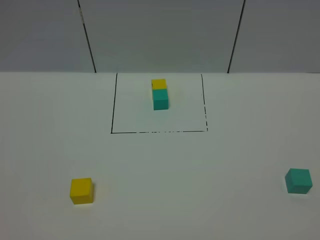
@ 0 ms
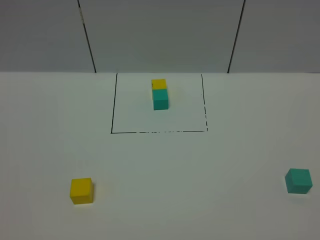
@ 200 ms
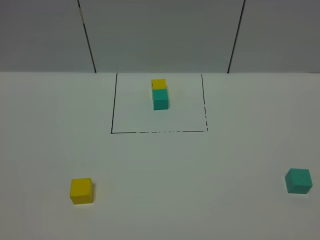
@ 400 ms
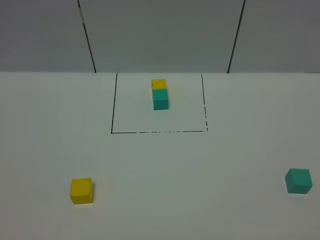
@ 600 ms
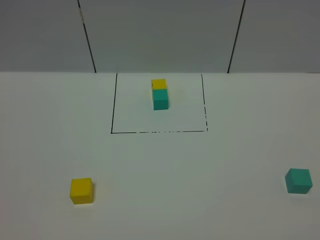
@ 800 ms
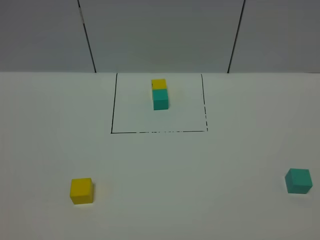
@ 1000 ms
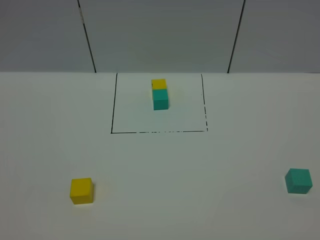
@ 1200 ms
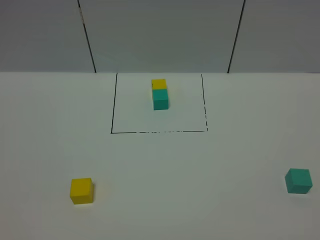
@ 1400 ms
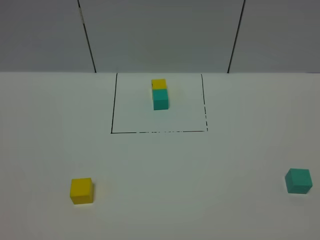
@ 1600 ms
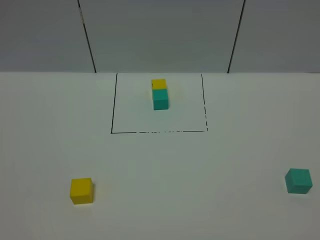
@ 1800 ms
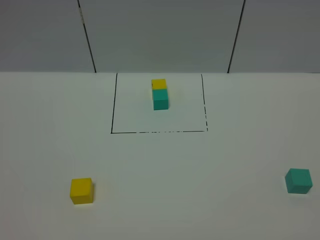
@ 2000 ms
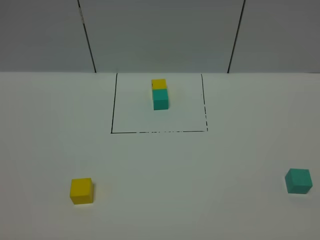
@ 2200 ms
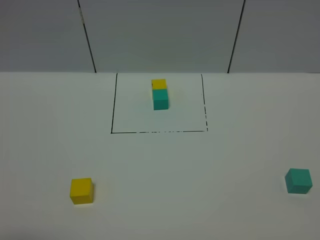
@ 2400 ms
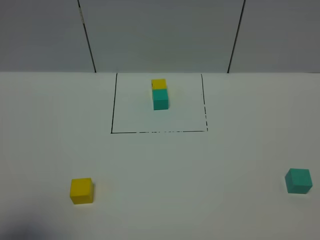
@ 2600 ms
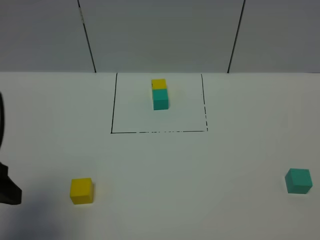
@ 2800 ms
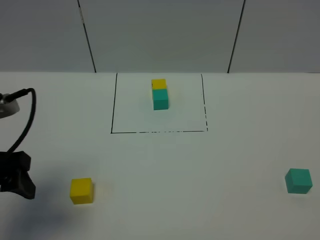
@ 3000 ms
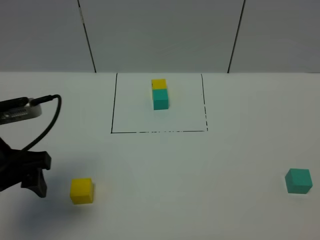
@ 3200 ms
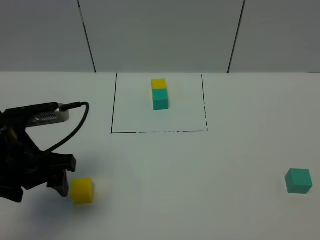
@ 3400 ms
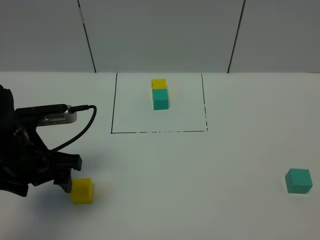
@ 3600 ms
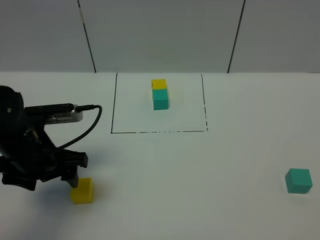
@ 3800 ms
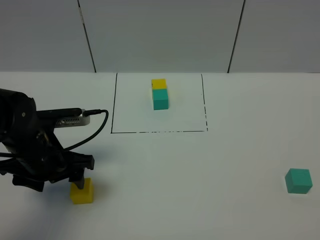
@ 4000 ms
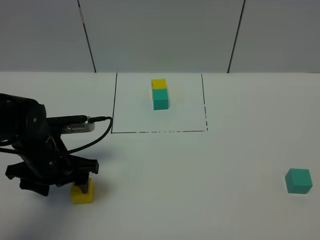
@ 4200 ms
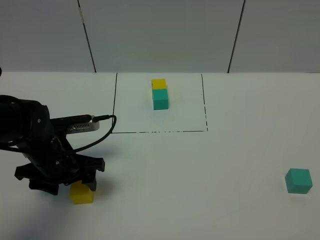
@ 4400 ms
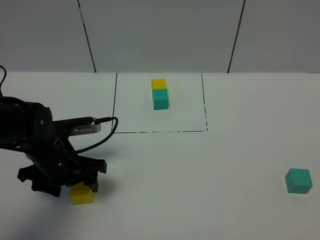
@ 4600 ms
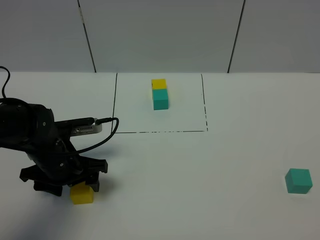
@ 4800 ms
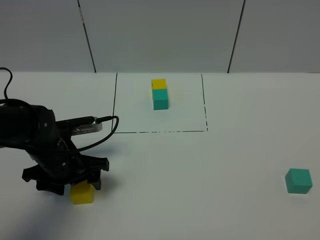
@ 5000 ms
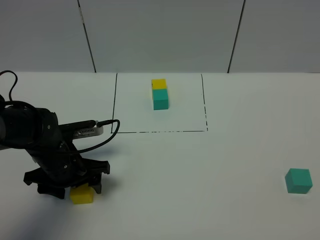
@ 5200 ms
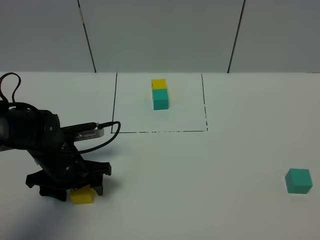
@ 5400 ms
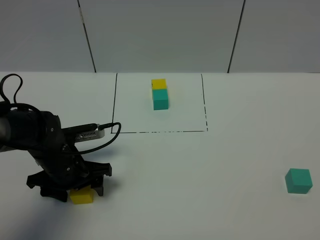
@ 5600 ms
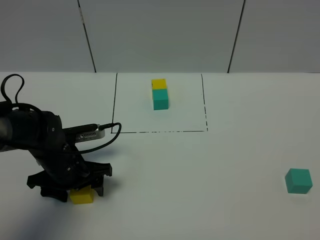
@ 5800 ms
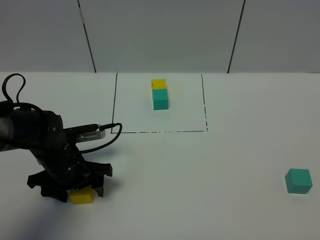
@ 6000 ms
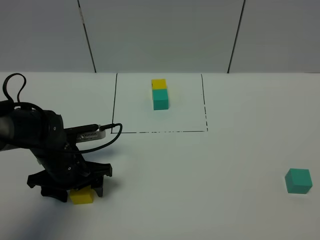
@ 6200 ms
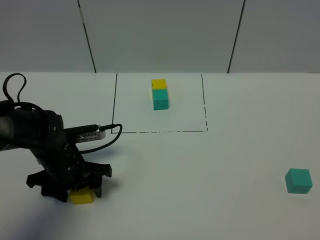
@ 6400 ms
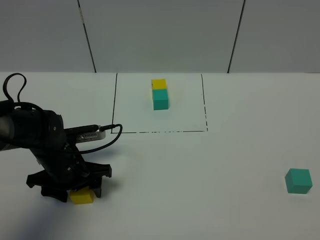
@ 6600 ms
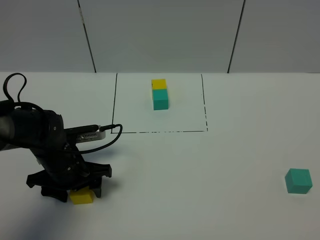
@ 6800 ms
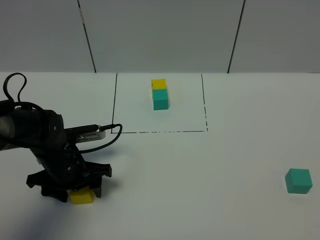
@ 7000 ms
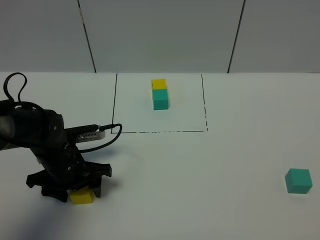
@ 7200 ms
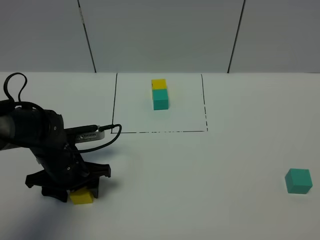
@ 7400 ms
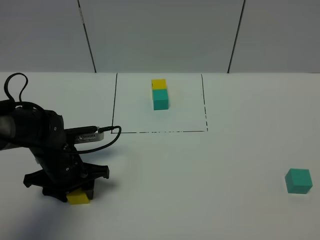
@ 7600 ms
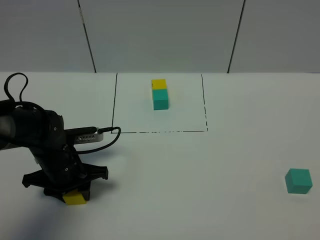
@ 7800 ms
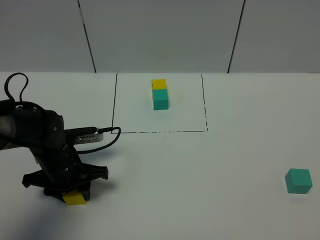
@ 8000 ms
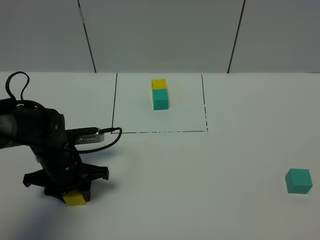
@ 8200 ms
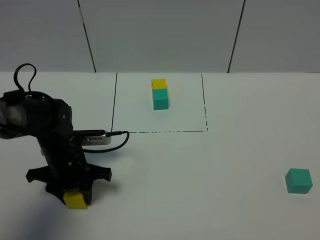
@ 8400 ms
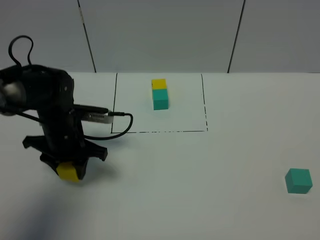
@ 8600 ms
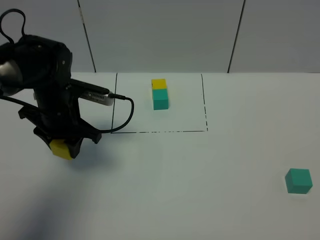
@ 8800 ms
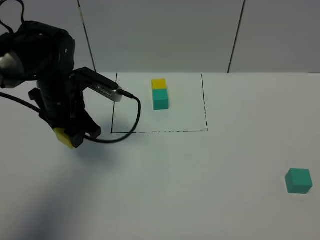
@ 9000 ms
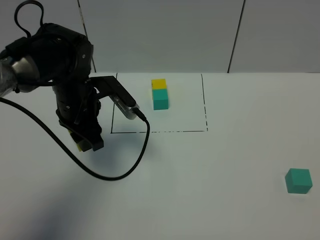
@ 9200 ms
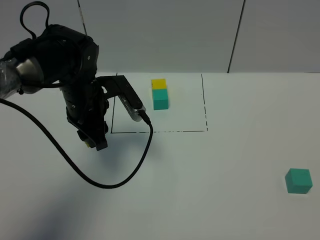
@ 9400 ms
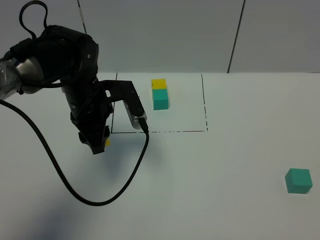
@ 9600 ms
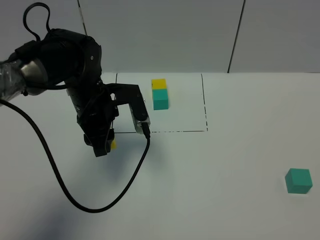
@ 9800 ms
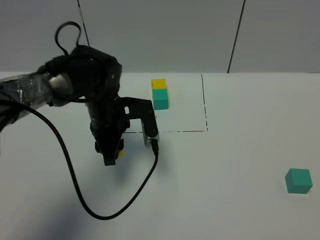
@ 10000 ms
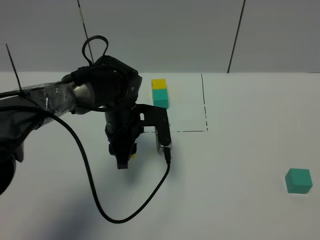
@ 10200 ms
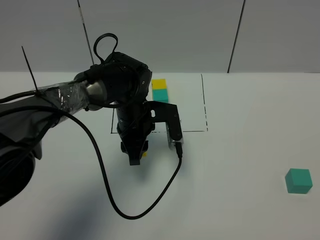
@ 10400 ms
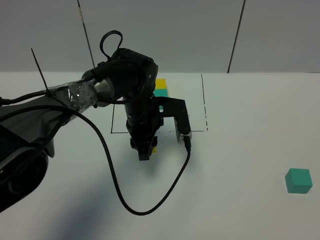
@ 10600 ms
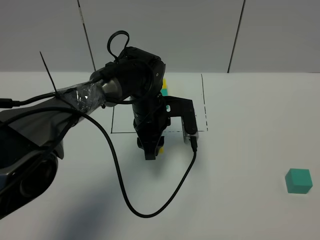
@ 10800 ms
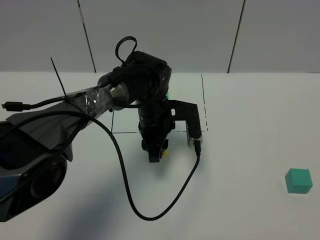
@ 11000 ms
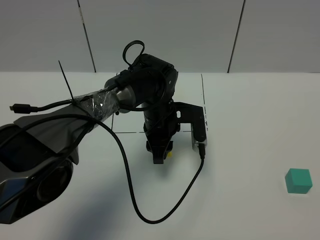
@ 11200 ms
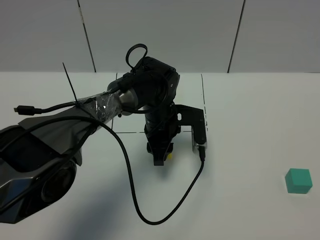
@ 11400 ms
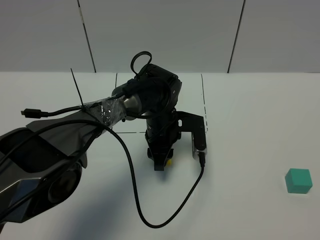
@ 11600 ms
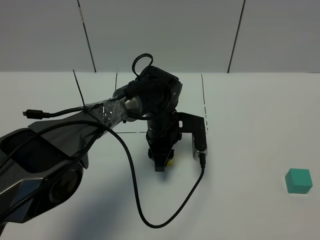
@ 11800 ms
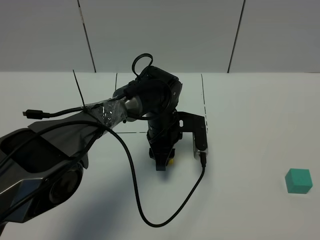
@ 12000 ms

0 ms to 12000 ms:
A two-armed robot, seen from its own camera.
Task of the whole recording: According to the building block template in front, assemble the scattered blocks together.
0 ms to 1600 ms: Neither gripper changes place.
1600 ms to 3000 ms: The left gripper heads forward, covering about 20 cm.
3000 ms to 4400 ms: The left gripper goes approximately 20 cm downward, forward and to the right.
4400 ms to 6000 ms: The grippers move only a little.
6000 ms to 7600 ms: The left gripper closes.
7600 ms to 9000 ms: The left gripper moves upward and forward, about 15 cm.
9000 ms to 10400 ms: The left gripper moves to the right and downward, approximately 15 cm.
10400 ms to 12000 ms: The left gripper is displaced to the right by roughly 5 cm.

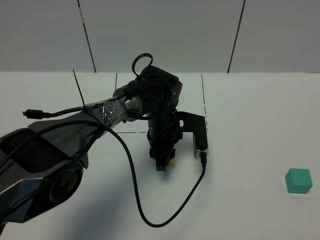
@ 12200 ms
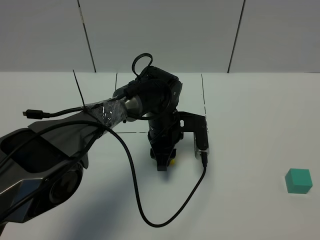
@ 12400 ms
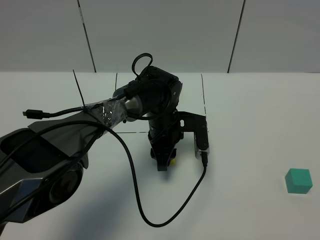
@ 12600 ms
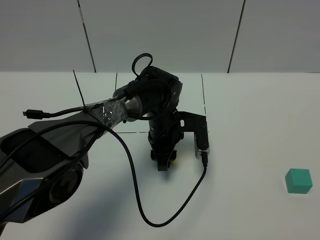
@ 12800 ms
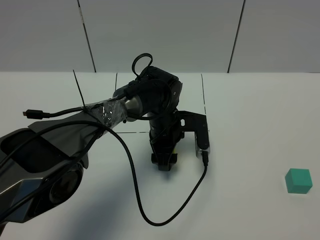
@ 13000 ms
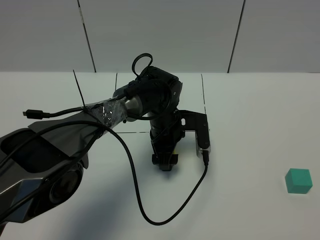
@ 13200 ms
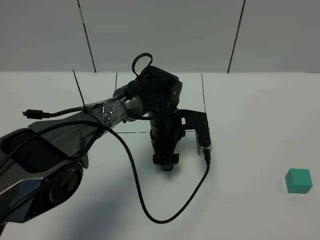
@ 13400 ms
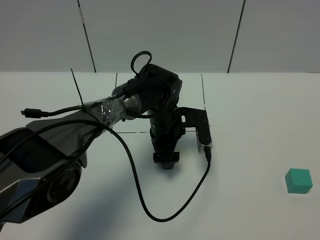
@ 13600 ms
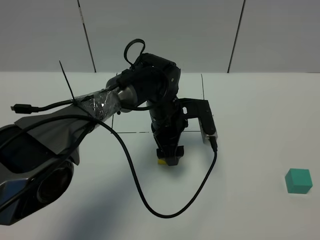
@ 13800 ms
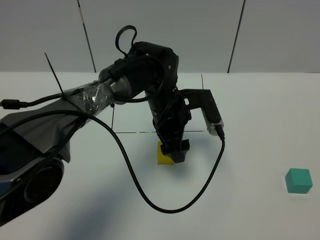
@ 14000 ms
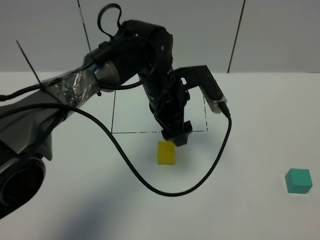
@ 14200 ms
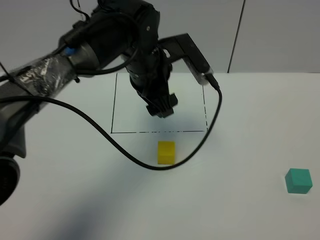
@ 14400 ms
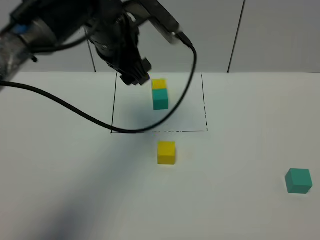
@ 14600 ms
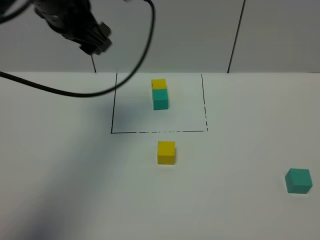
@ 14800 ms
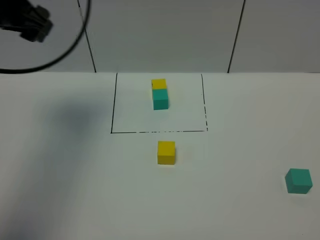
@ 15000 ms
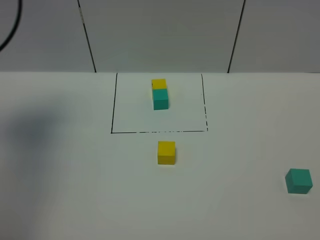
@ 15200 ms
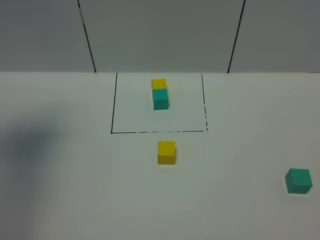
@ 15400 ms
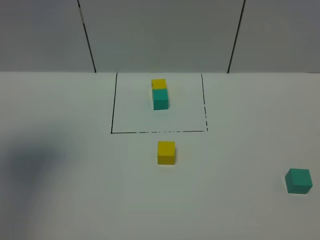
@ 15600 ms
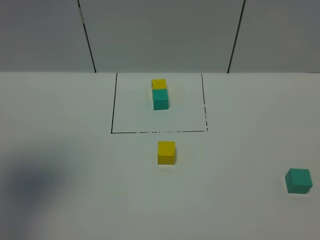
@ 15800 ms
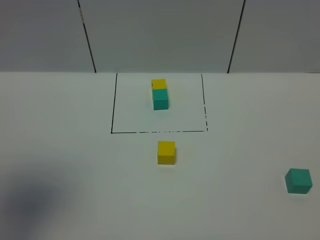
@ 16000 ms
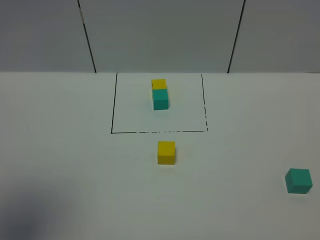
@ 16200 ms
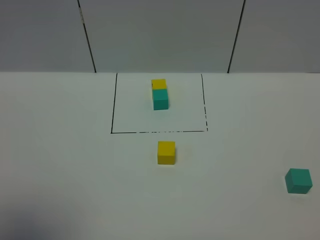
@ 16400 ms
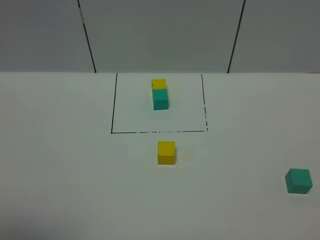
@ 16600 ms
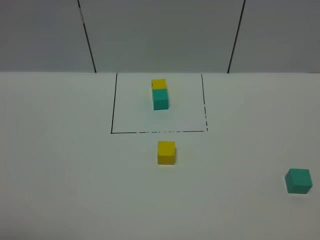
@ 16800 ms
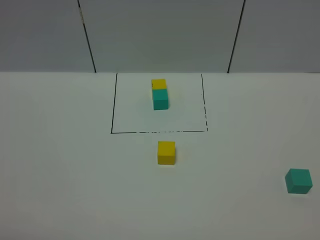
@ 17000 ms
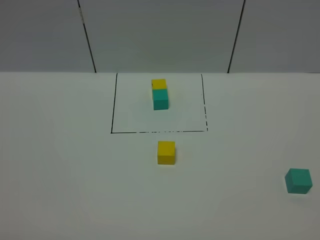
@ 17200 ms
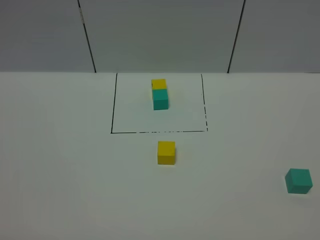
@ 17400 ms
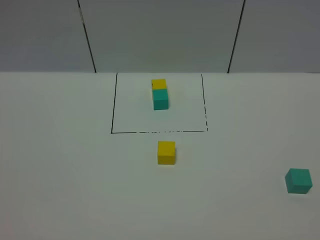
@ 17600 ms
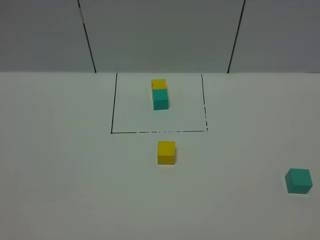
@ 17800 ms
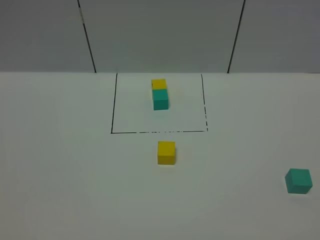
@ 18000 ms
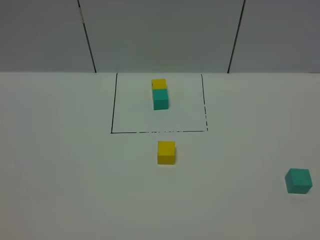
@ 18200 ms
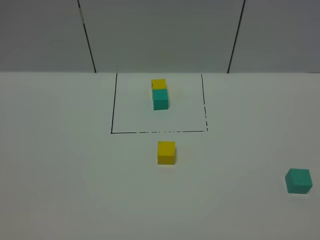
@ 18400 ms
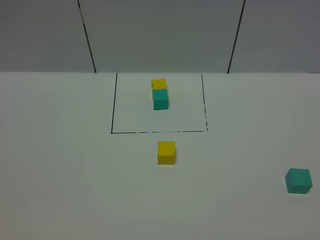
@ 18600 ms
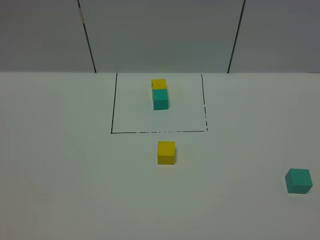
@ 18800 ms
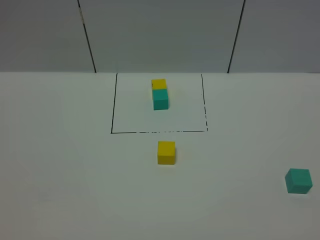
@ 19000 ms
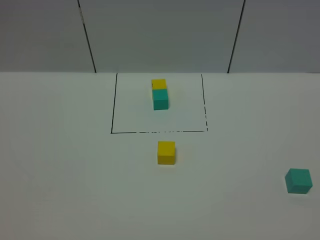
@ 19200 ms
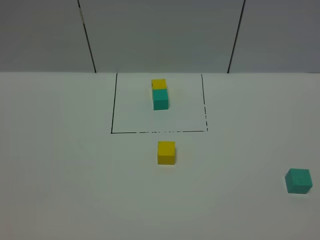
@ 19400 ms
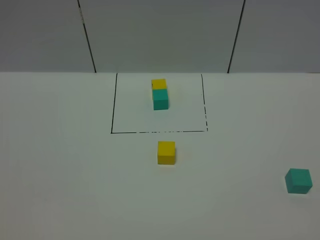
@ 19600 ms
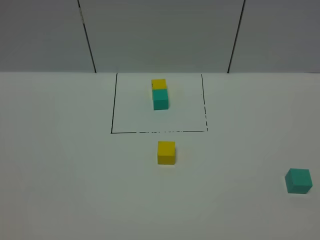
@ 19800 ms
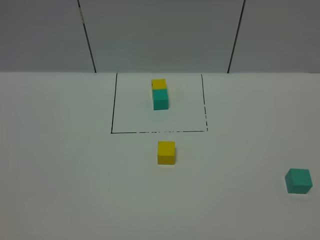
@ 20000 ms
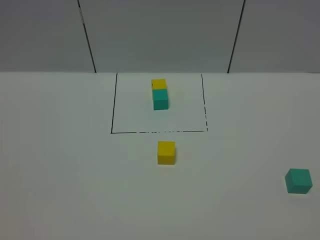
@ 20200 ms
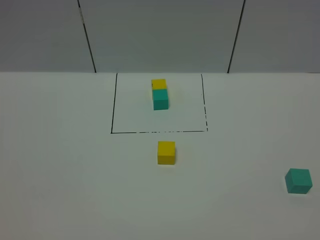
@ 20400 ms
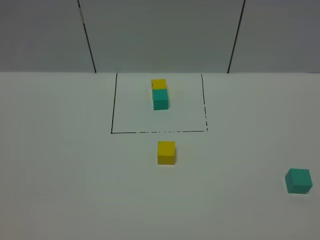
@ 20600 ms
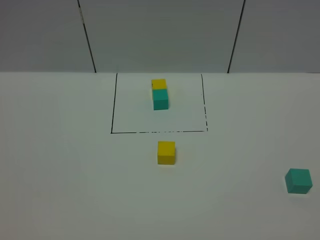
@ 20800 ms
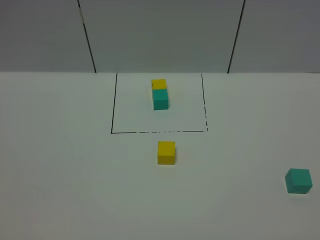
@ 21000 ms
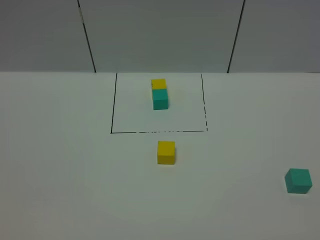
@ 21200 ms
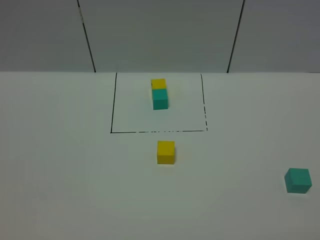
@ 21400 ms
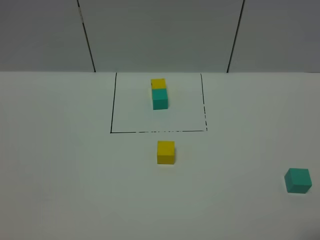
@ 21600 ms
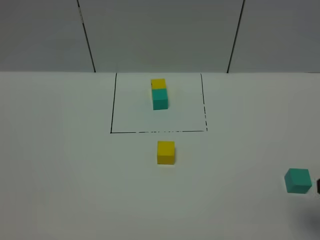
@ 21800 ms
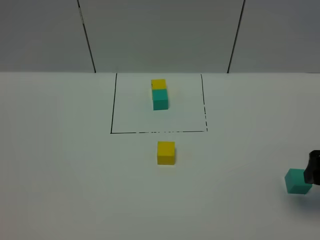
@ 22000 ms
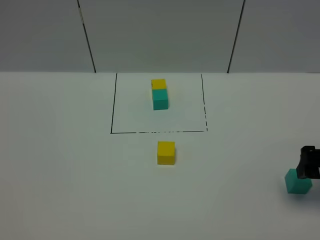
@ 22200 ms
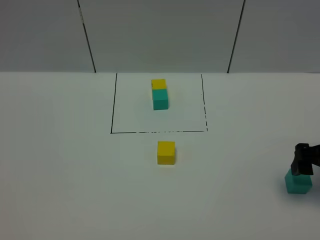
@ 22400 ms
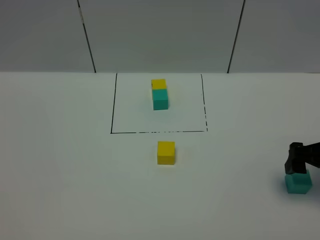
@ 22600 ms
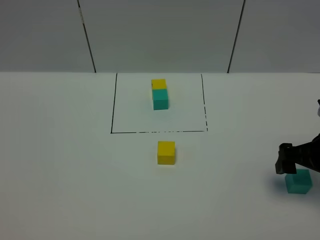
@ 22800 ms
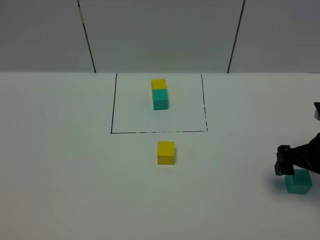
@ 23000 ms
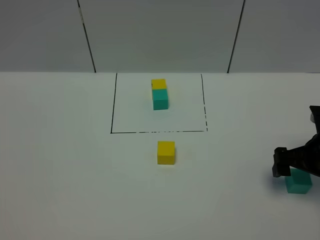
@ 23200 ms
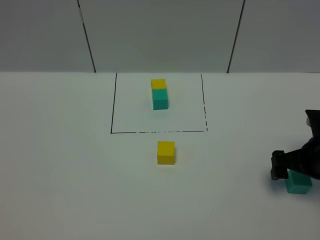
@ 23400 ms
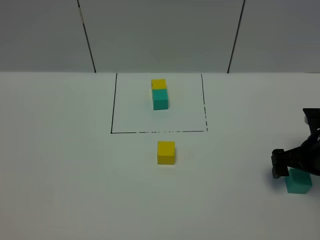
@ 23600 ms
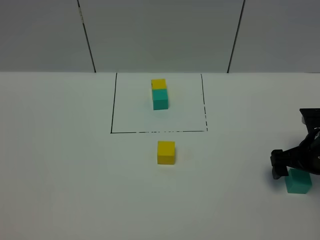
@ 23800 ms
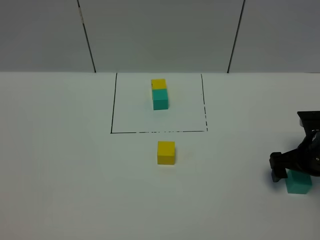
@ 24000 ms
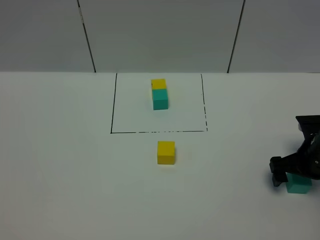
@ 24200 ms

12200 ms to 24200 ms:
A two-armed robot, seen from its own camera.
Task of the whole recording: According to the building block template in front, assemble the scattered blocks together.
12200 ms to 13800 ms: The left gripper opens up.
13800 ms to 15200 ms: The left gripper goes about 40 cm to the left and upward.
15200 ms to 16600 ms: The left gripper goes some 30 cm backward.
16600 ms to 18200 ms: The left gripper shifts roughly 15 cm downward and backward.
18200 ms to 19800 ms: Both grippers stay put.
21200 ms to 22600 ms: The right gripper travels forward by some 25 cm.
22600 ms to 24200 ms: The right gripper shifts some 10 cm downward.
